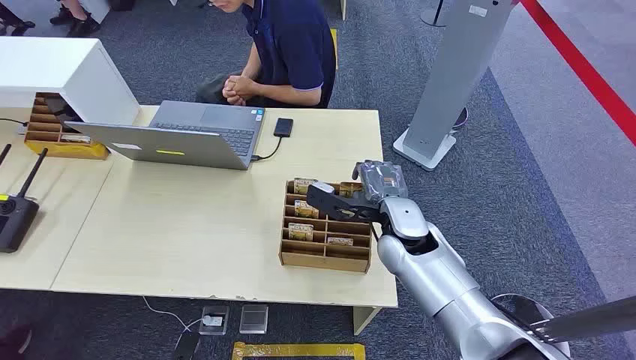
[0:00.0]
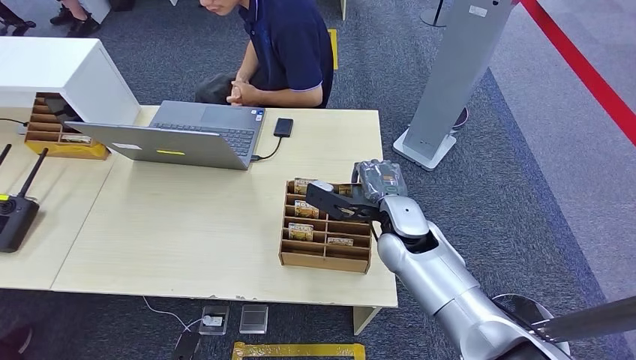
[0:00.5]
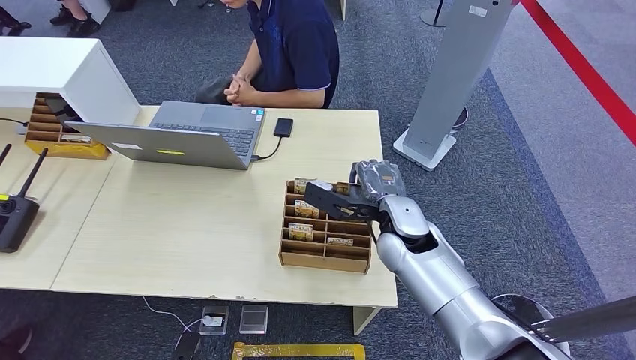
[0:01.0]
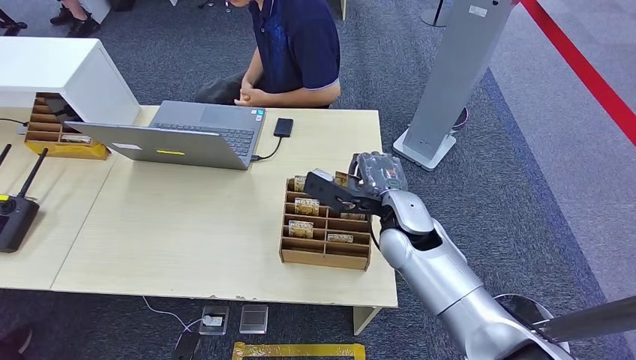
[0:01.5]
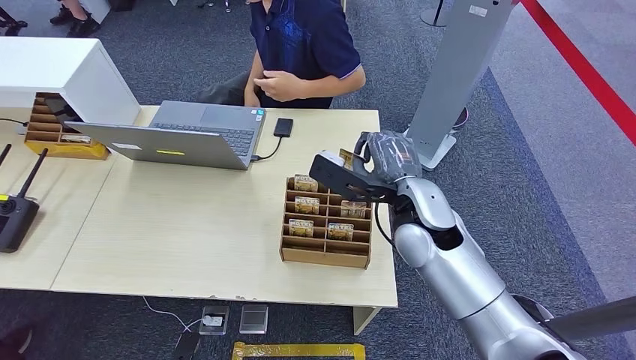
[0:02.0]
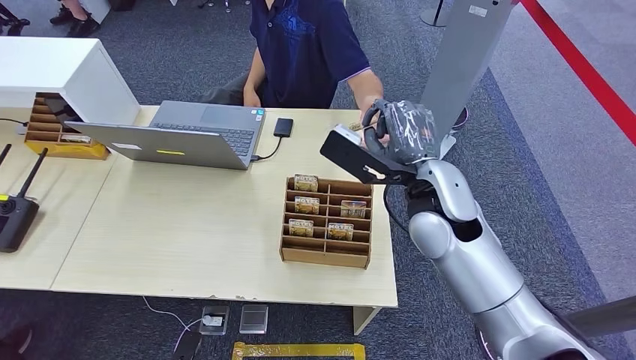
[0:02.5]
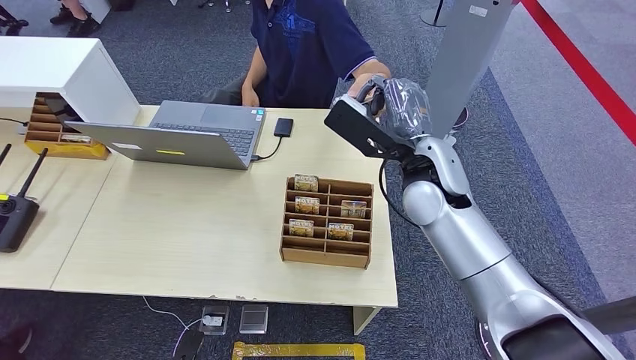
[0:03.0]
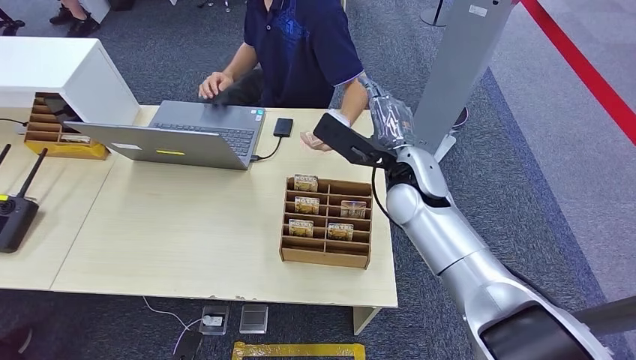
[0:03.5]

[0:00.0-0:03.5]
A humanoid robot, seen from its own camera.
Step, 0:00.0 to 0:01.5: Pick up the key card from the card box.
Step, 0:03.0 to 0:03.5: Hand the key card to the target.
0:02.0 to 0:03.5: The right hand goes roughly 5 cm forward.
